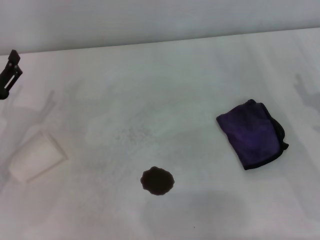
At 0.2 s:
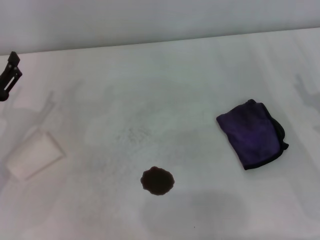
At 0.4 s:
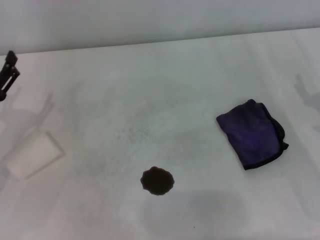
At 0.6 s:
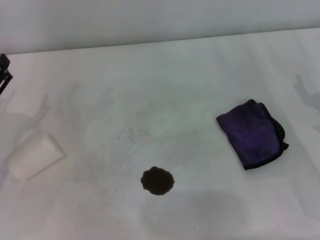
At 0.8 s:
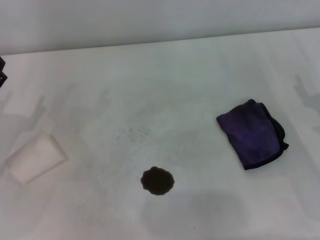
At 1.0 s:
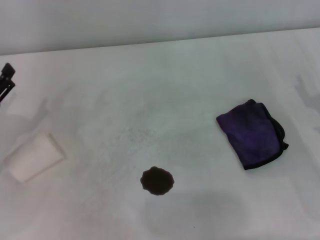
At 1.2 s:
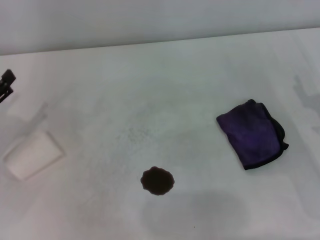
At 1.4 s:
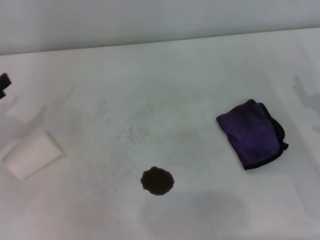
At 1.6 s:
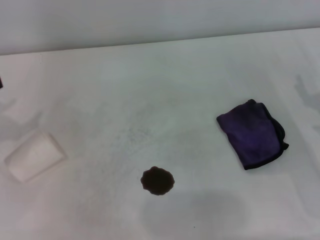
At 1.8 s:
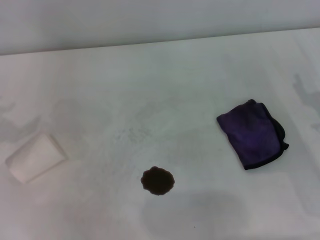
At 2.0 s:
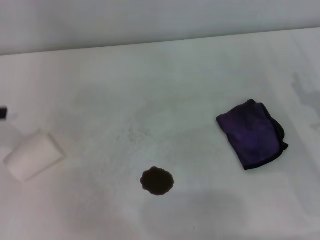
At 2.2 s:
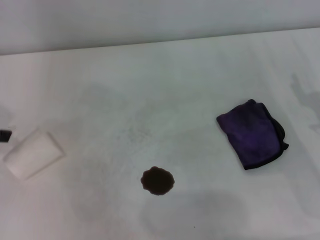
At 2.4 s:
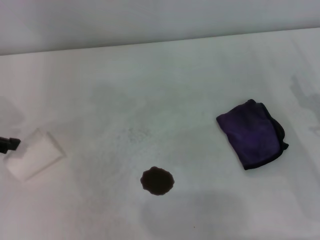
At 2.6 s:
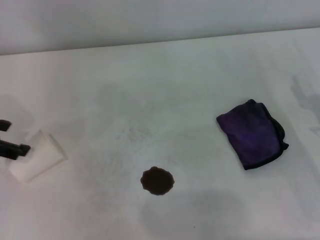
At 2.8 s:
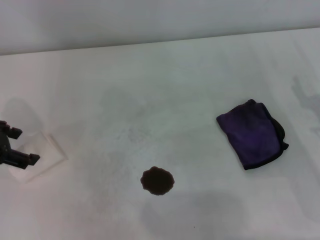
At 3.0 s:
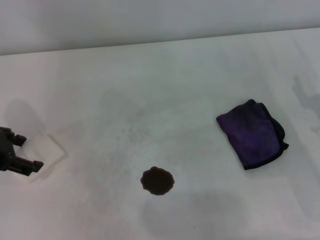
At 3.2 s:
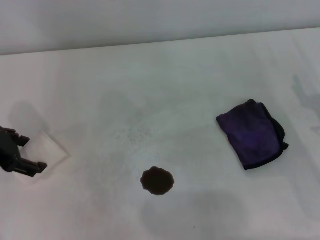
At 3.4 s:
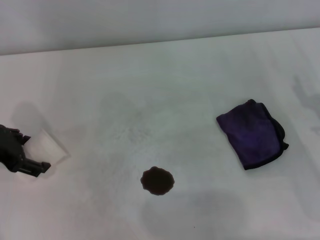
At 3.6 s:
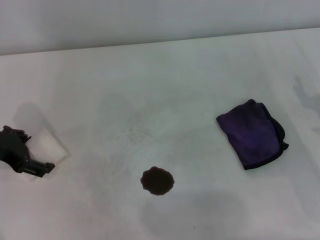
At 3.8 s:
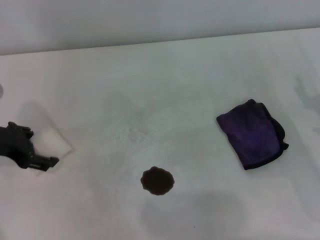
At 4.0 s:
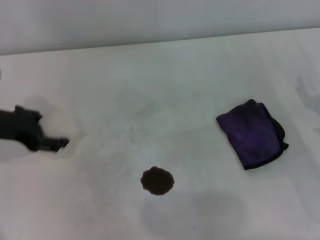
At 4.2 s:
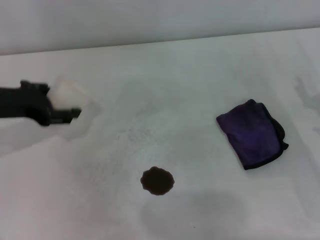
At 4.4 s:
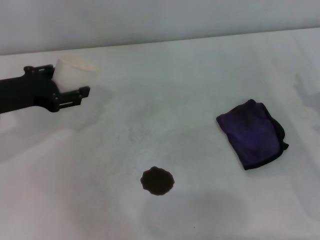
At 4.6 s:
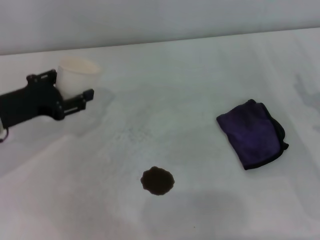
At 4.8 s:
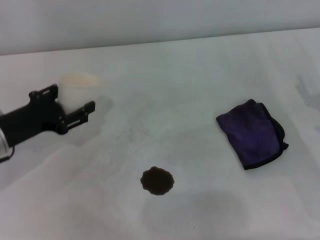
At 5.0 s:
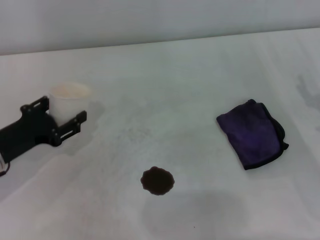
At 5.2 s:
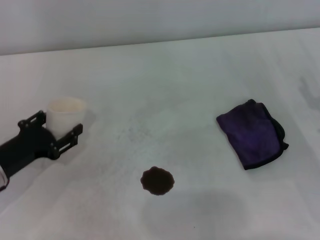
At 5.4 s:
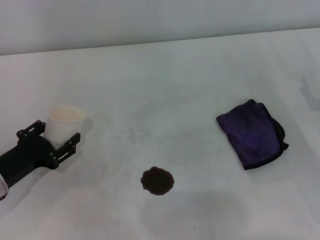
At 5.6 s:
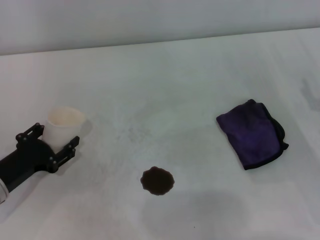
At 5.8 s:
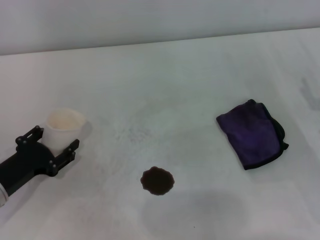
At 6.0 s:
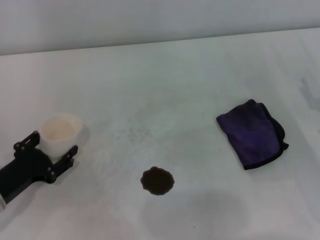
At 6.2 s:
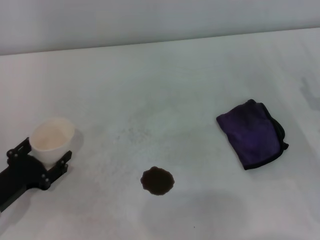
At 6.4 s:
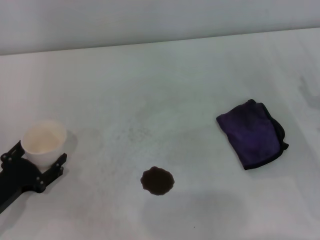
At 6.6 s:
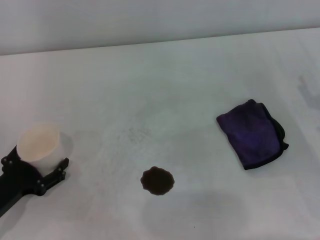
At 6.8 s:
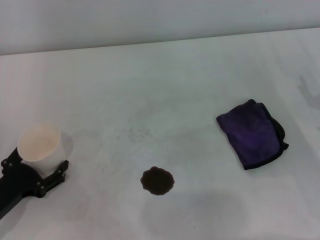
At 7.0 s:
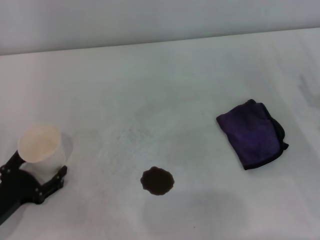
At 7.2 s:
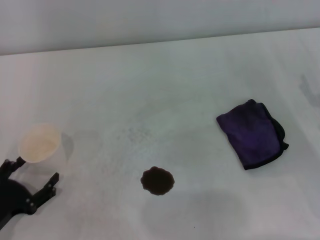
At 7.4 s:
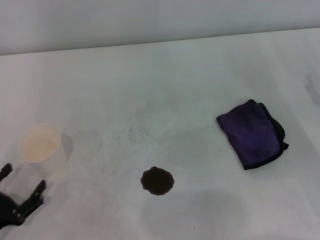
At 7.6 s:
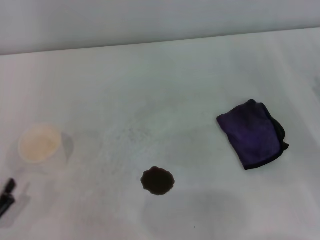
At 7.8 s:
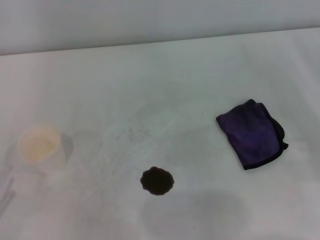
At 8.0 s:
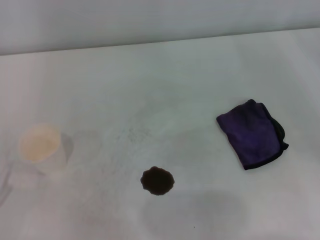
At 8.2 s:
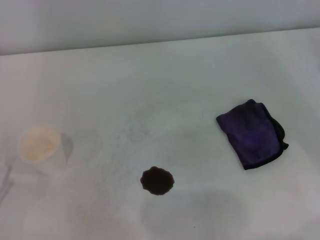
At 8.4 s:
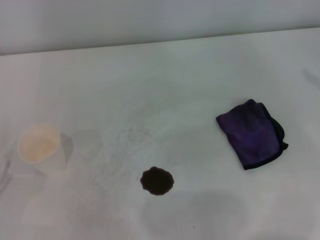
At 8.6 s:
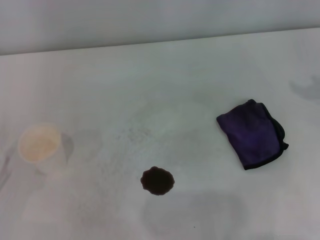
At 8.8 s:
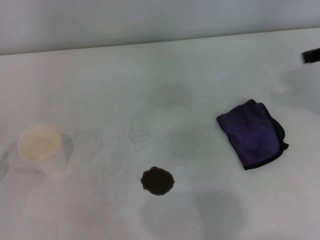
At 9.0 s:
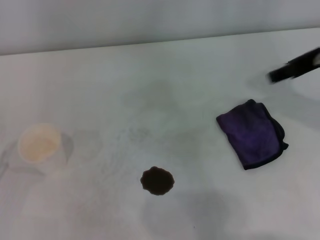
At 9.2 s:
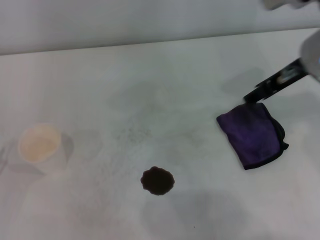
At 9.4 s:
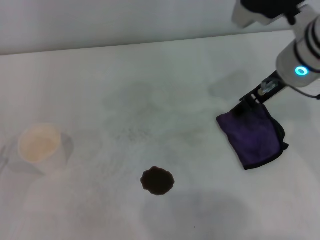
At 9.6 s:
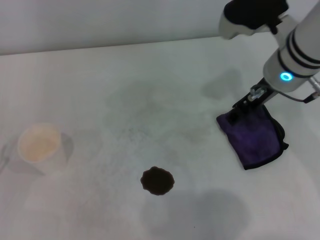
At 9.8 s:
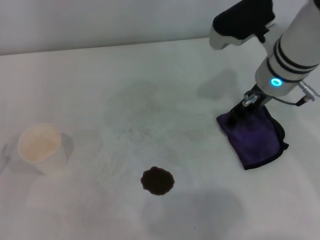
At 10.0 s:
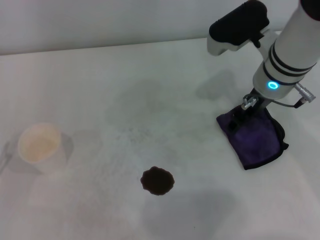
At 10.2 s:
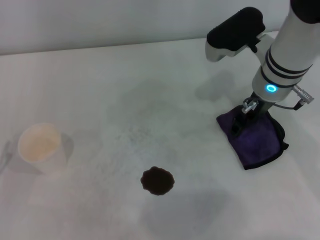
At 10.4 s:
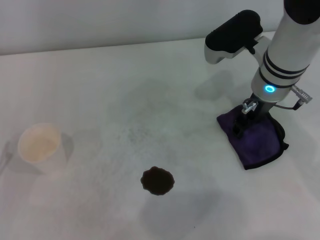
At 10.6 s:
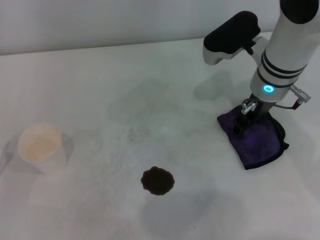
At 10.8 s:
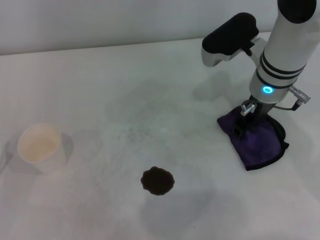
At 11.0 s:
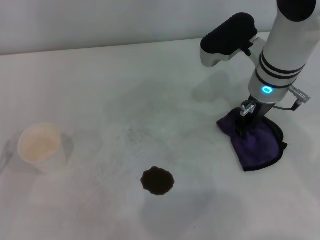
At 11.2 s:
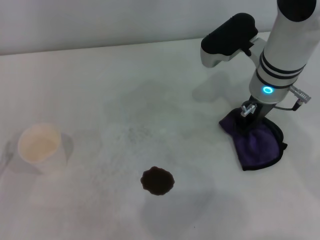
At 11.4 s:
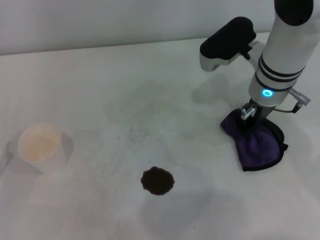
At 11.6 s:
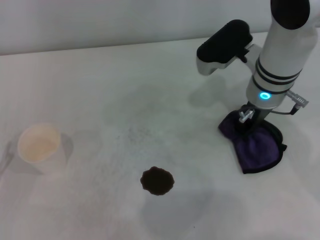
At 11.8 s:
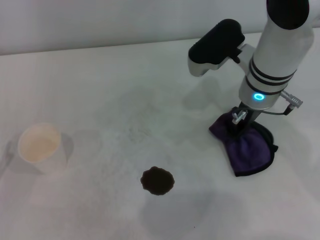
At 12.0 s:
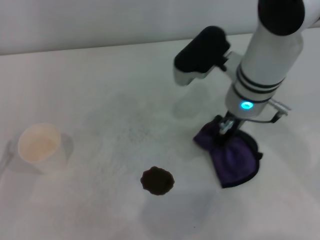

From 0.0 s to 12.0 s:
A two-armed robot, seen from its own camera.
Step, from 0.0 s to 3.6 s: Grasp the paper cup with the left gripper.
Step, from 3.8 s to 6.6 s: Stand the paper cup upright with the left gripper.
Step, from 7.0 s to 11.2 s: Grasp the rag with the right gripper.
From 0.0 s to 1.6 s: The left gripper is displaced upward and to the left by some 10 cm.
From 1.6 s to 3.0 s: The left gripper goes some 5 cm to the right.
From 3.0 s to 4.4 s: The left gripper closes.
From 4.4 s to 6.0 s: The left gripper moves downward and backward, approximately 15 cm.
From 6.0 s to 7.6 s: The left gripper is displaced backward by approximately 10 cm, and opens its fingers.
From 7.6 s to 9.0 s: The right gripper moves upward, to the left and forward, about 25 cm.
From 9.0 s to 10.4 s: The right gripper goes about 15 cm downward, to the left and forward.
From 10.4 s to 12.0 s: The right gripper changes place by approximately 5 cm, and closes its fingers.

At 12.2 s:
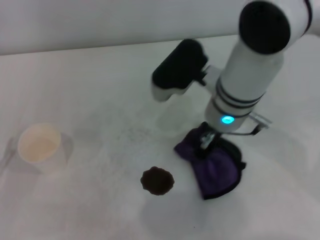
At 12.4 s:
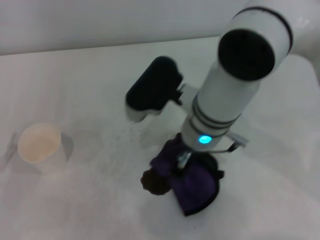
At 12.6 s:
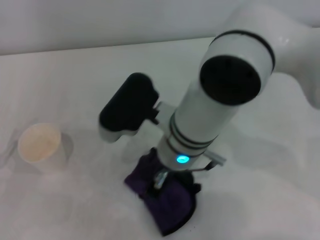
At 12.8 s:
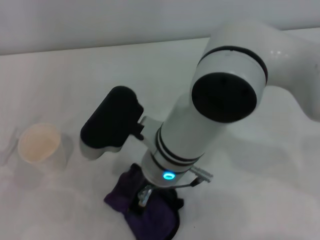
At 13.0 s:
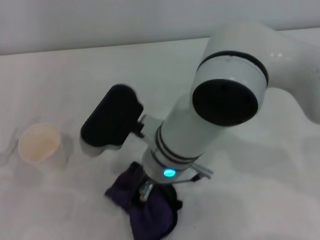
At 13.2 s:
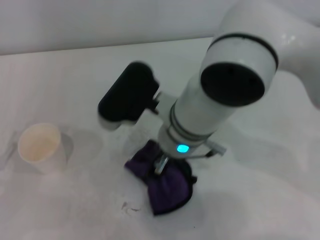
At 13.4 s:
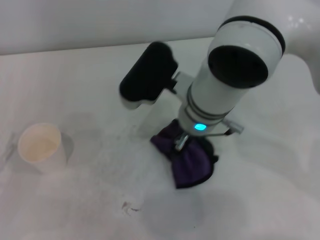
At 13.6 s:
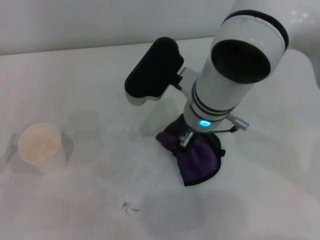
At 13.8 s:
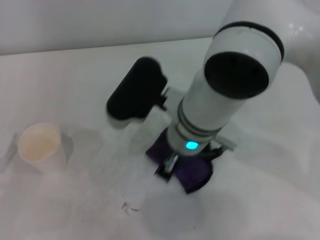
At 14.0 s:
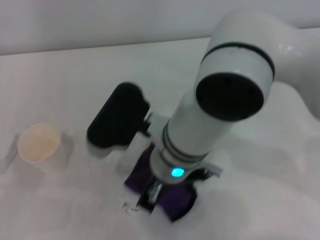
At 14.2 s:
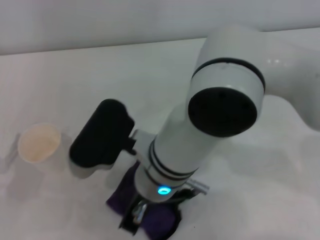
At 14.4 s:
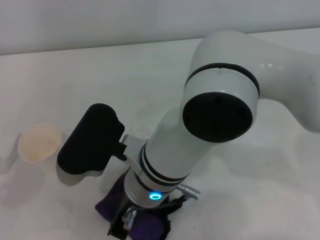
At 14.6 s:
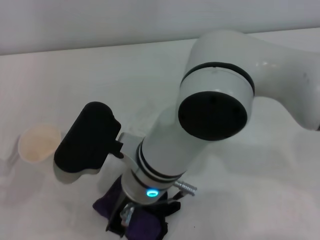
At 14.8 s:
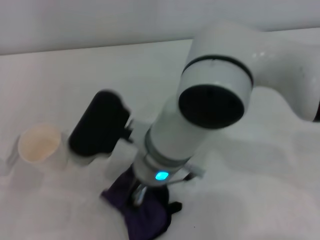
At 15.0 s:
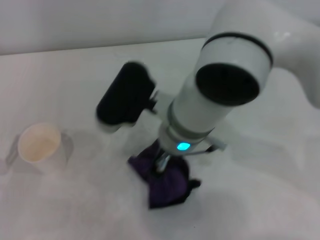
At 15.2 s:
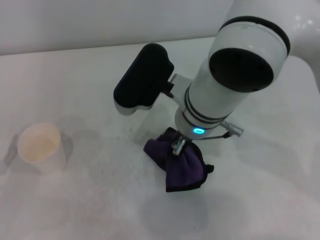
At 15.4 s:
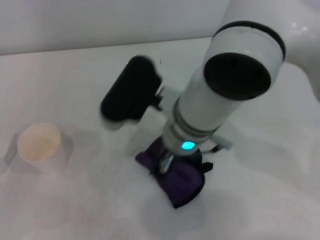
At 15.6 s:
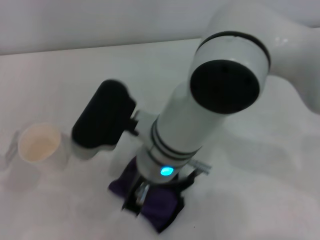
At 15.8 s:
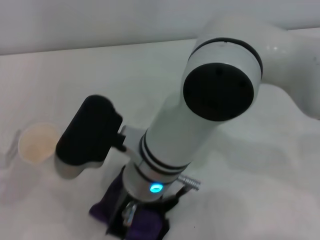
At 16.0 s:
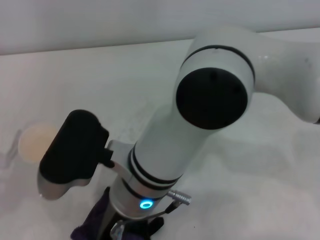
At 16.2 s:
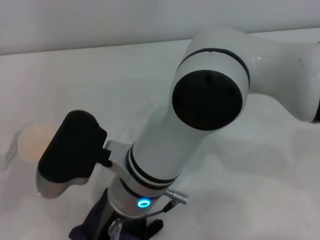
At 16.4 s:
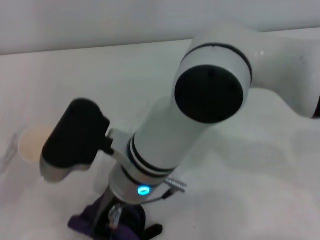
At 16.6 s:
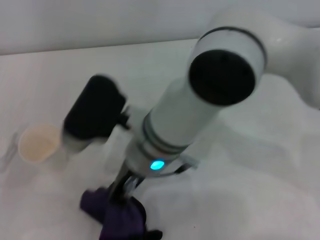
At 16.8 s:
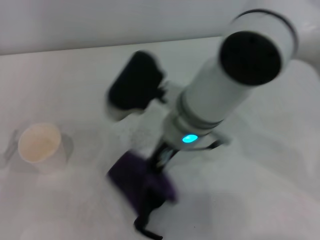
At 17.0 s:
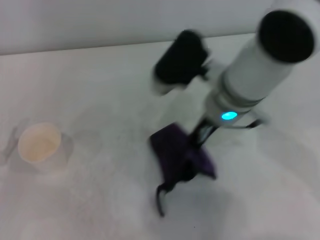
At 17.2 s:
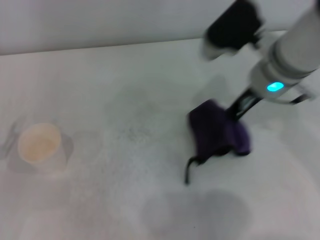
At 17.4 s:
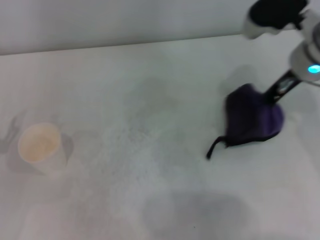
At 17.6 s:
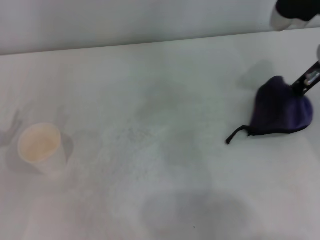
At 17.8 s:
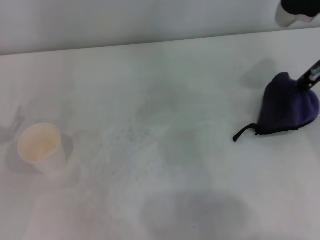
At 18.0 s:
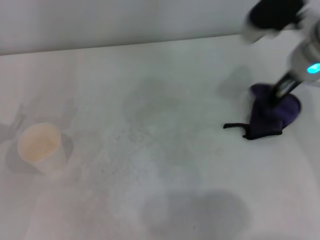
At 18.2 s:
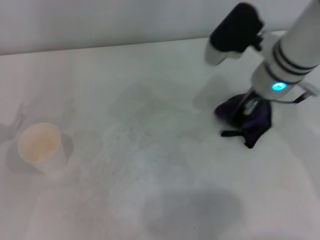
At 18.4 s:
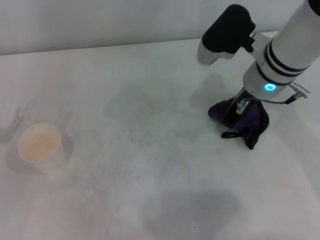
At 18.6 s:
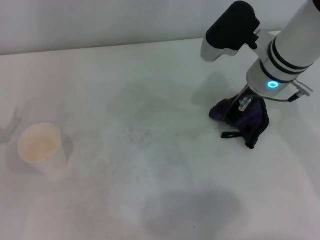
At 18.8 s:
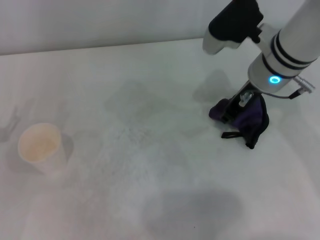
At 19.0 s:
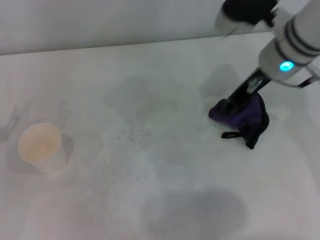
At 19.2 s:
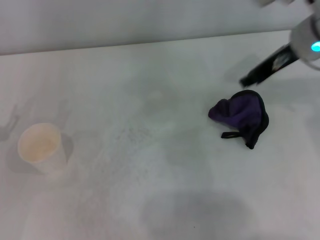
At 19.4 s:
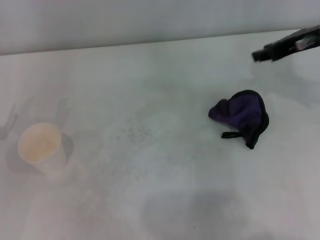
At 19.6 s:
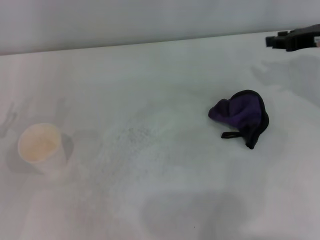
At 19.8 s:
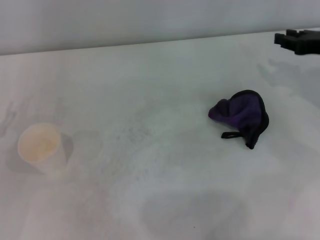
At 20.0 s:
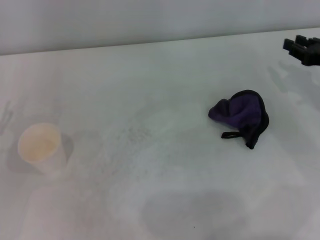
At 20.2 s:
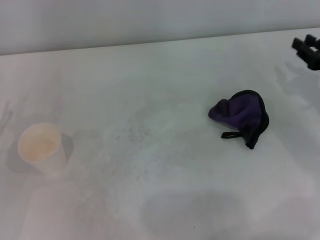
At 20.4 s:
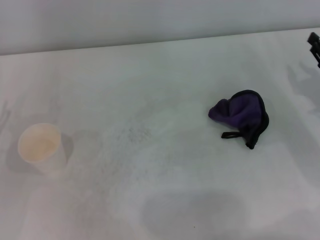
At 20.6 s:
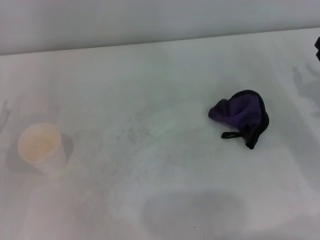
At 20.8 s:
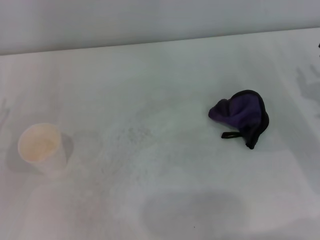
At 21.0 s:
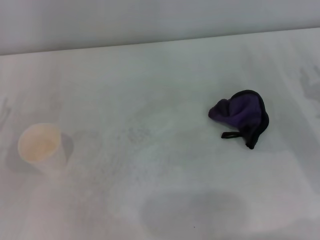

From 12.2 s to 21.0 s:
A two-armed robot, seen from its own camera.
Step, from 12.2 s to 18.2 s: Wipe the stains off the table with the right gripper.
Step, from 18.4 s to 19.0 s: Place the rag on the table with the right gripper.
From 13.6 s to 15.2 s: The right gripper reaches some 10 cm backward, then returns.
From 15.2 s to 16.6 s: The right gripper heads to the left, covering about 5 cm.
From 16.6 s to 18.0 s: The left gripper goes some 5 cm forward. Meanwhile the right gripper is displaced to the right by about 20 cm.
From 18.0 s to 19.6 s: The right gripper is displaced to the right by some 10 cm.
From 19.6 s to 21.0 s: The right gripper moves downward and backward, approximately 15 cm.
